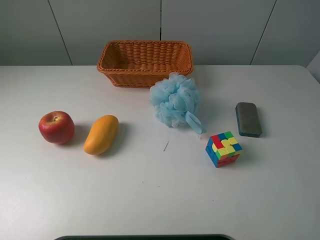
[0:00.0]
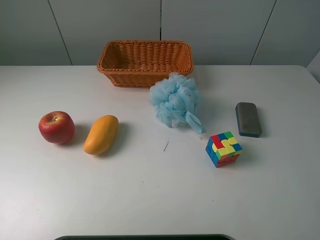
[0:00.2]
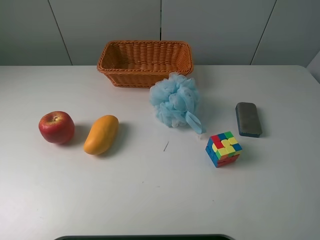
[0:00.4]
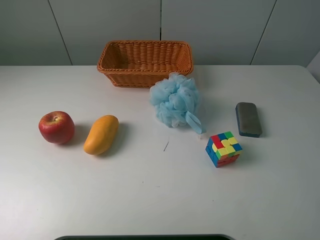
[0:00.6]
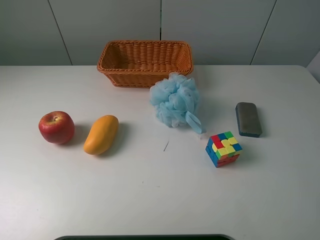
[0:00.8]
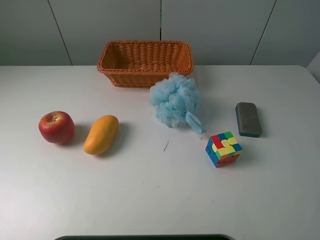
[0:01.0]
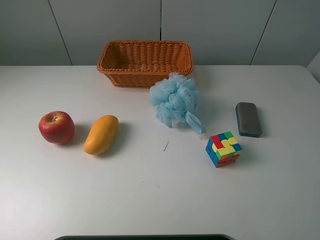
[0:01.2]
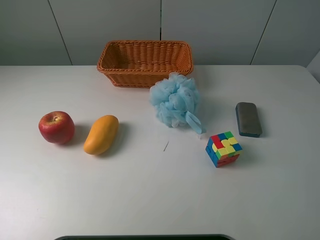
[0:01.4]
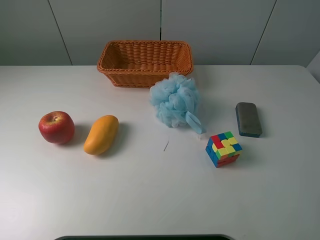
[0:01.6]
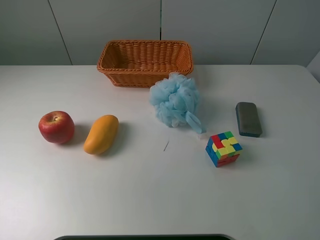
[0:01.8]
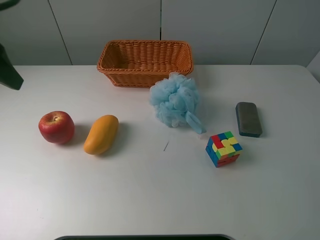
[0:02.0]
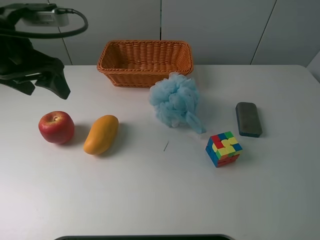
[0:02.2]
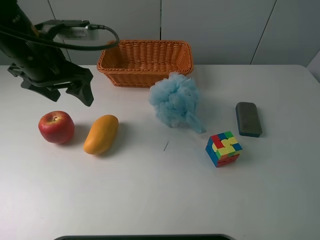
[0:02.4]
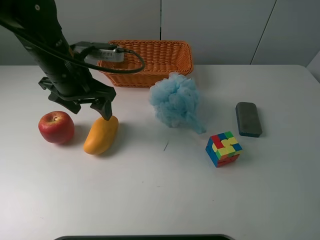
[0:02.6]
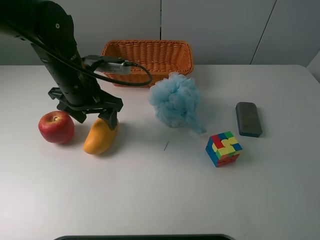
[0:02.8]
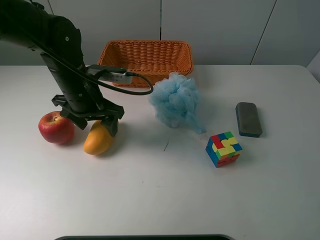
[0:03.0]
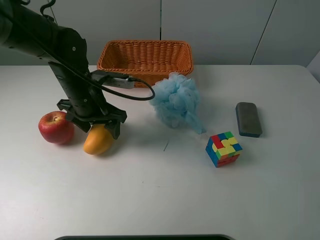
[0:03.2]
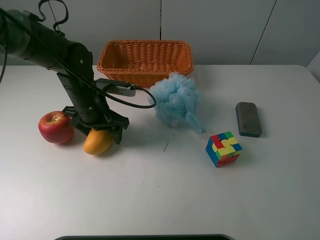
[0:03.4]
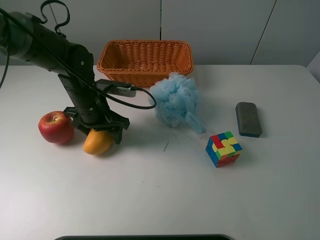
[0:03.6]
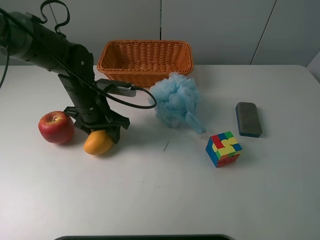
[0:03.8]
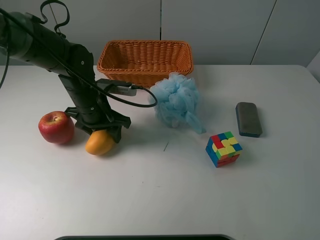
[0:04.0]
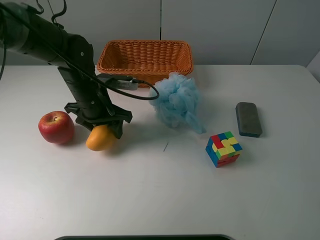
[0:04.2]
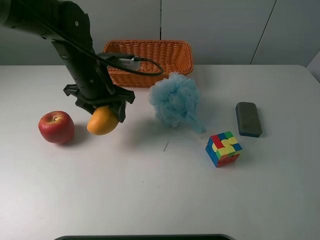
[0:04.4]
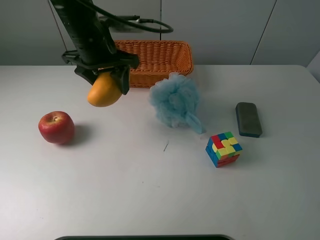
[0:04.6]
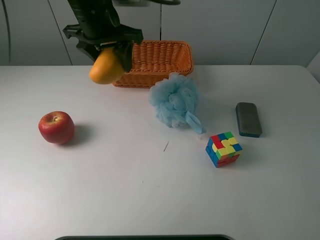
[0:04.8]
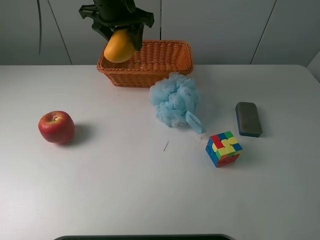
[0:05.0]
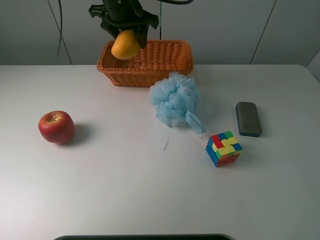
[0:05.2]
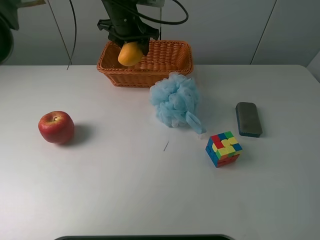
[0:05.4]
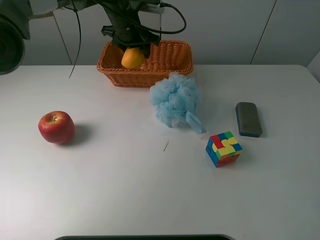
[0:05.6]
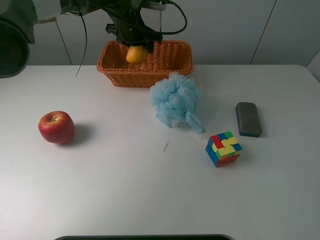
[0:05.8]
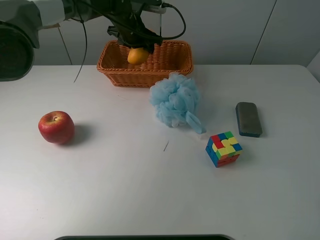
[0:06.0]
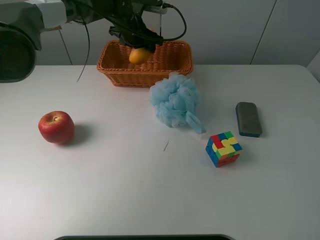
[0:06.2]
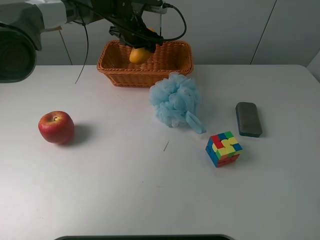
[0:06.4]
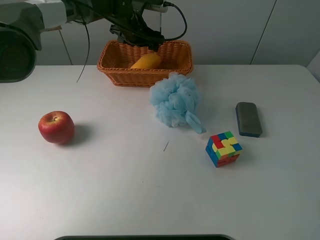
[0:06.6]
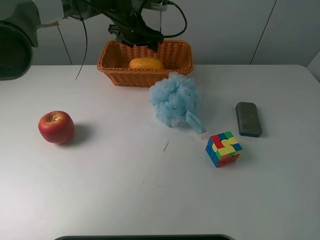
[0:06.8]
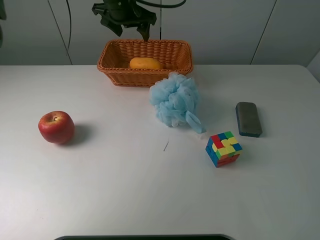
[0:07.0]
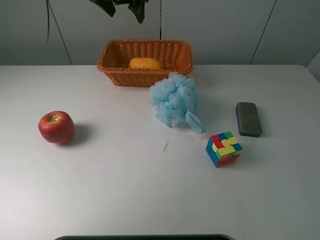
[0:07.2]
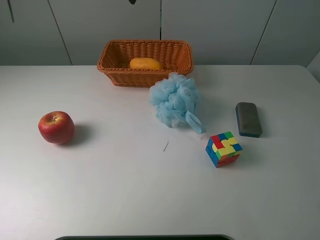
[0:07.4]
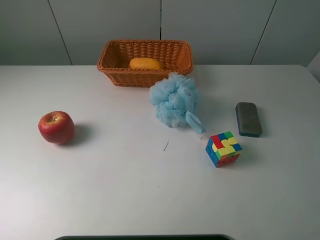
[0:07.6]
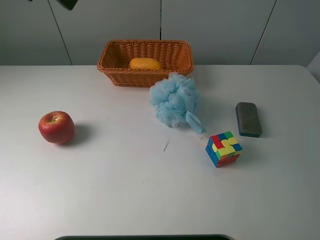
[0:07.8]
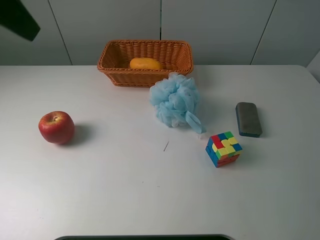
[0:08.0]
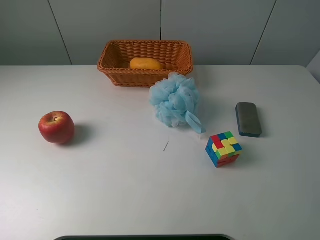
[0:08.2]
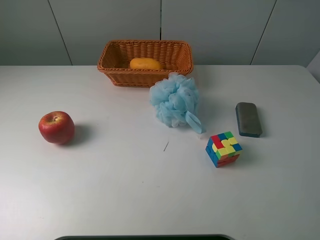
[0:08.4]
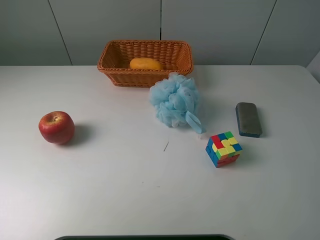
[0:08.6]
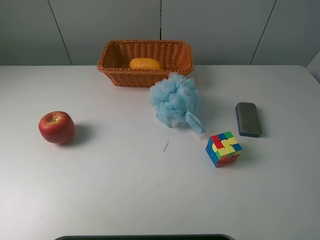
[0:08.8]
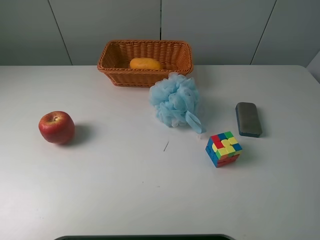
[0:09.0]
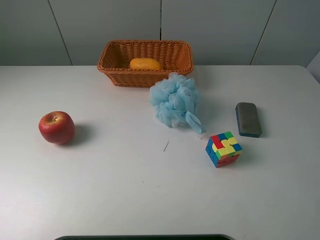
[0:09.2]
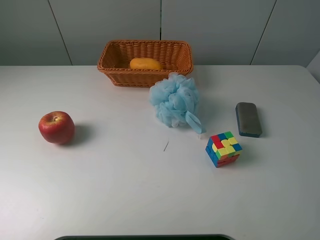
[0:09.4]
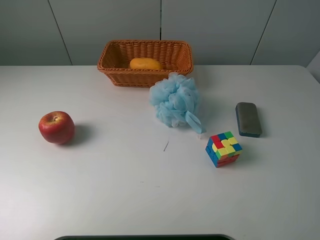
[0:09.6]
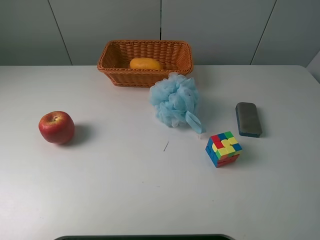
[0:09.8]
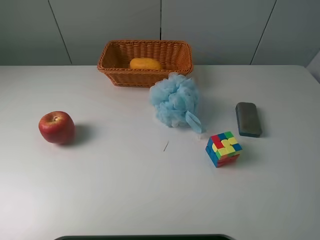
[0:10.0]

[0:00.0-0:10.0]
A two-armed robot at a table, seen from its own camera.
Task of the whole recording: use a picker to grab the item closest to the apple and place it in the basket.
Step, 0:00.0 to 0:04.0: Grasp the mango with the left gripper.
Step, 0:04.2 to 0:06.8: Place the mango into the basket with the left gripper.
0:01.4 to 0:02.8: The left gripper is displaced forward, downward and to the right by roughly 35 cm.
0:02.8 to 0:04.2: The left gripper closes up.
0:04.2 to 0:05.8: The left gripper is displaced forward by approximately 20 cm.
0:05.8 to 0:07.2: The left gripper shifts about 15 cm upward and backward, and opens up.
0:07.2 to 0:08.6: The left gripper is displaced backward and to the left by some 40 cm.

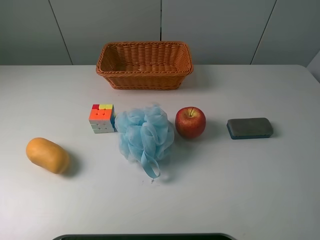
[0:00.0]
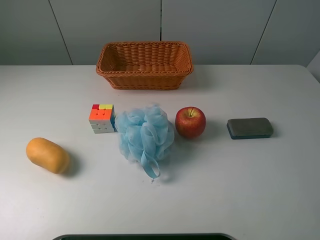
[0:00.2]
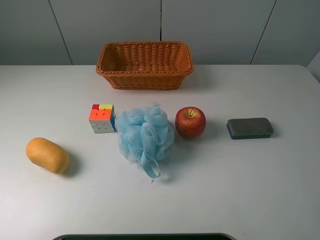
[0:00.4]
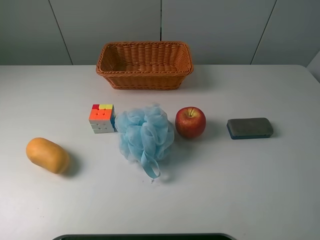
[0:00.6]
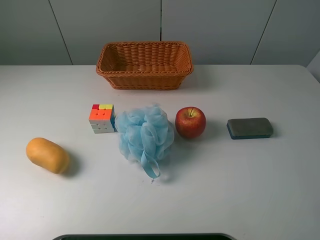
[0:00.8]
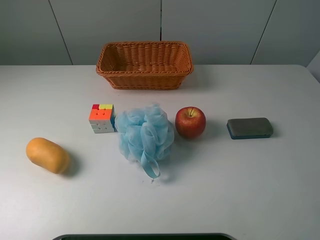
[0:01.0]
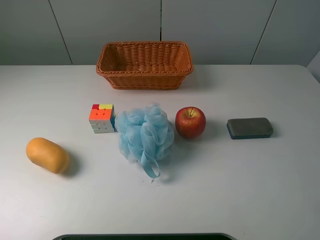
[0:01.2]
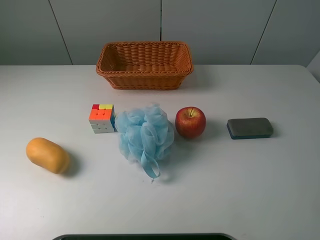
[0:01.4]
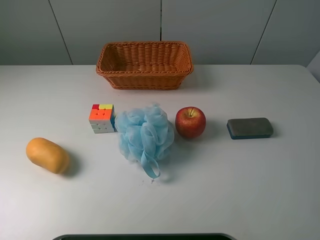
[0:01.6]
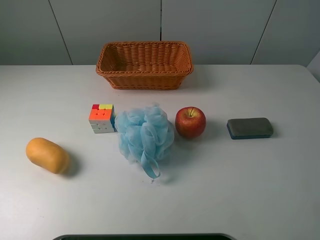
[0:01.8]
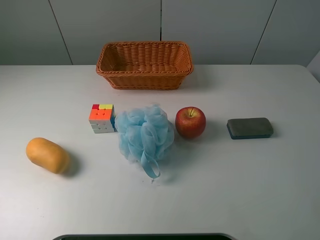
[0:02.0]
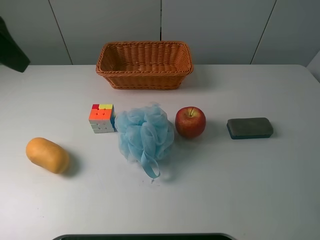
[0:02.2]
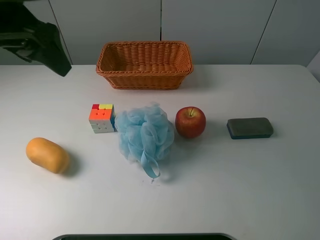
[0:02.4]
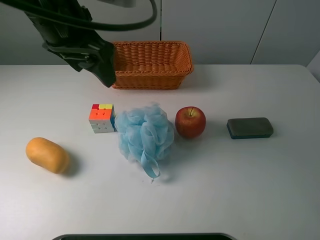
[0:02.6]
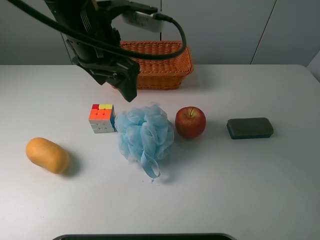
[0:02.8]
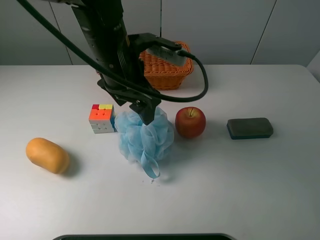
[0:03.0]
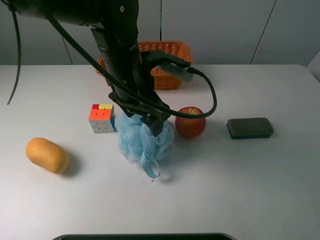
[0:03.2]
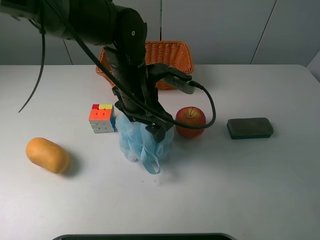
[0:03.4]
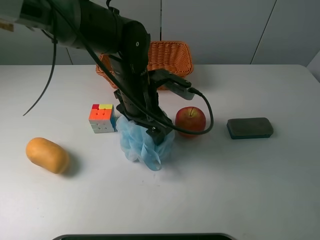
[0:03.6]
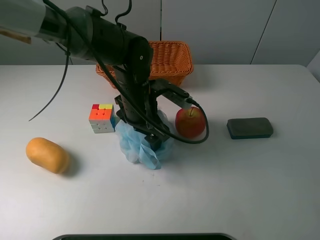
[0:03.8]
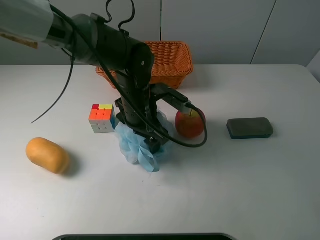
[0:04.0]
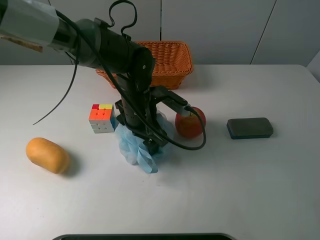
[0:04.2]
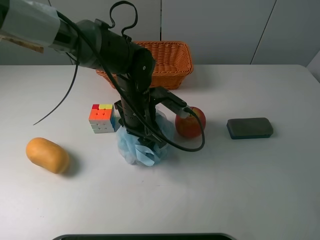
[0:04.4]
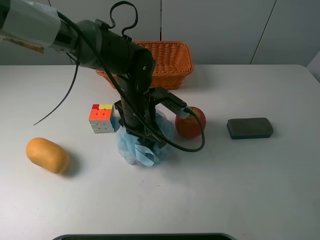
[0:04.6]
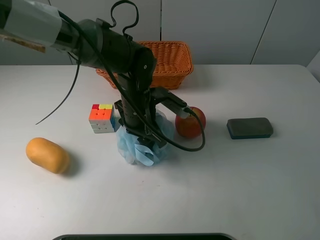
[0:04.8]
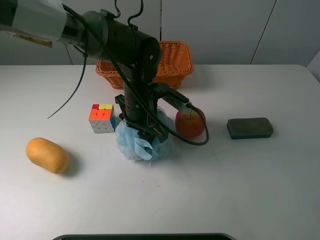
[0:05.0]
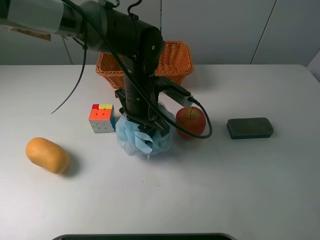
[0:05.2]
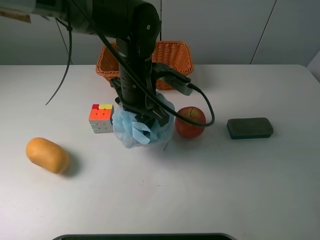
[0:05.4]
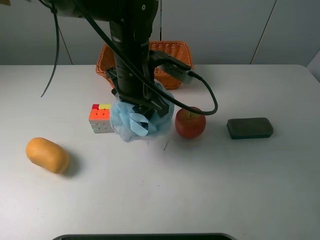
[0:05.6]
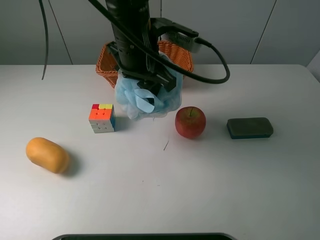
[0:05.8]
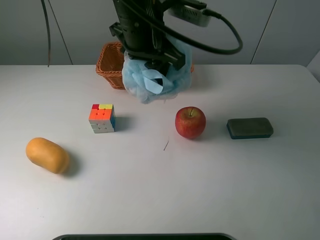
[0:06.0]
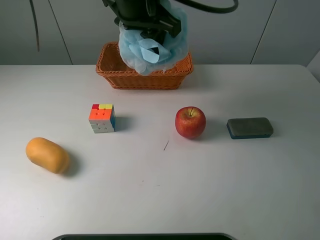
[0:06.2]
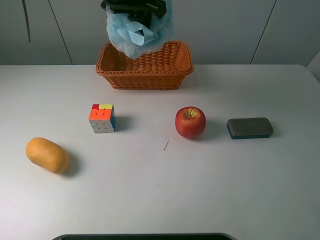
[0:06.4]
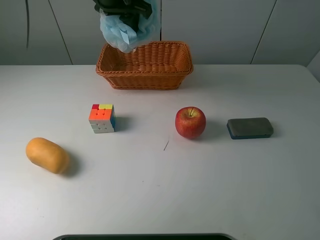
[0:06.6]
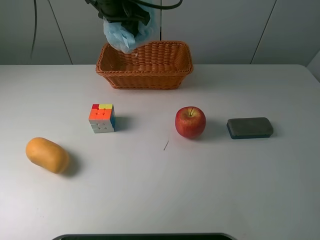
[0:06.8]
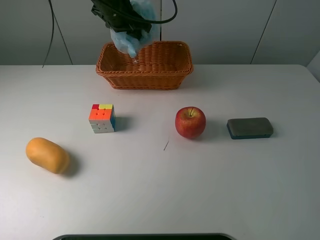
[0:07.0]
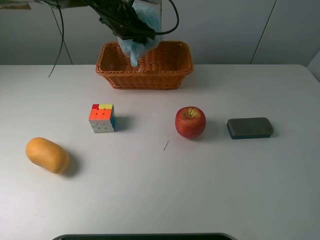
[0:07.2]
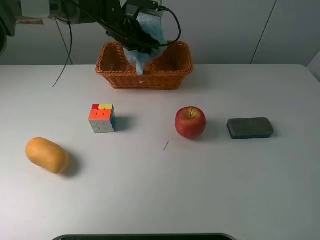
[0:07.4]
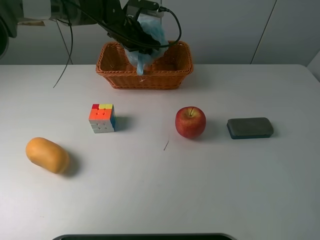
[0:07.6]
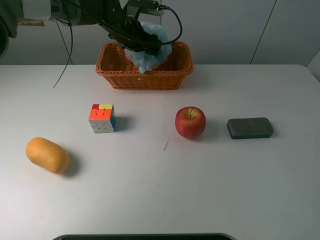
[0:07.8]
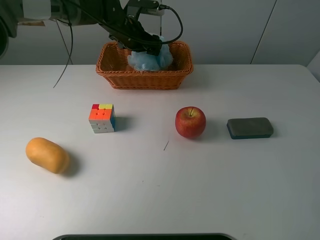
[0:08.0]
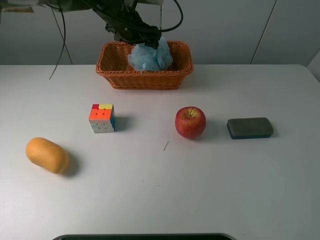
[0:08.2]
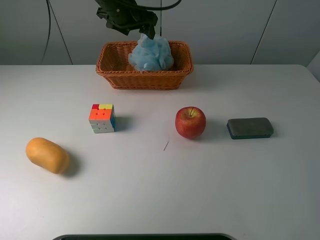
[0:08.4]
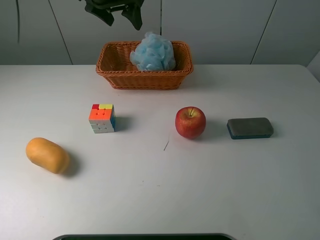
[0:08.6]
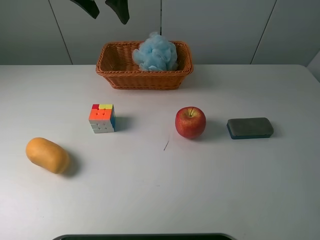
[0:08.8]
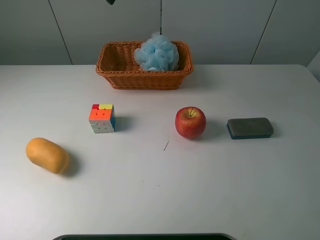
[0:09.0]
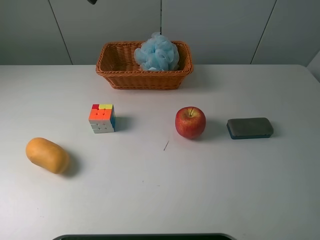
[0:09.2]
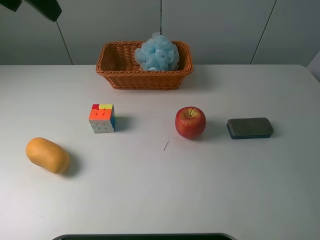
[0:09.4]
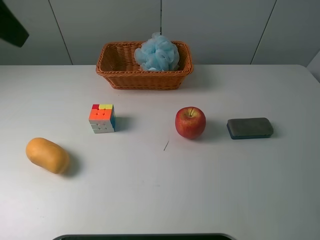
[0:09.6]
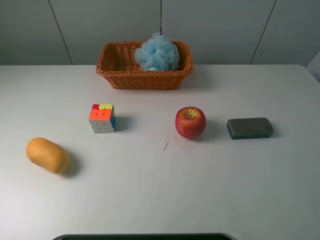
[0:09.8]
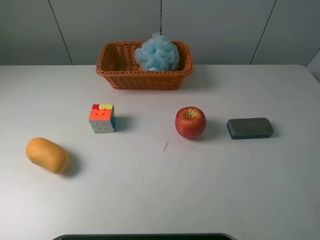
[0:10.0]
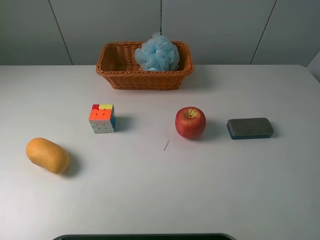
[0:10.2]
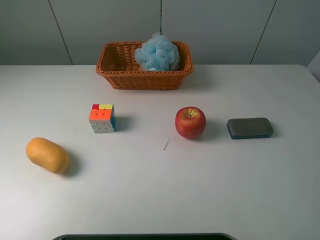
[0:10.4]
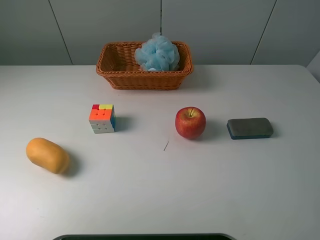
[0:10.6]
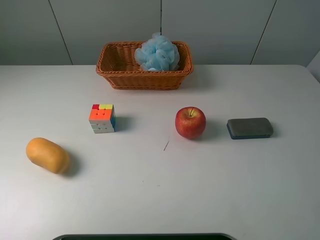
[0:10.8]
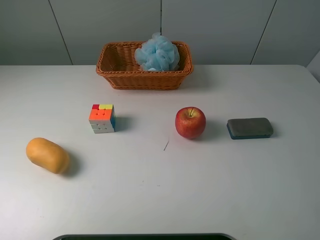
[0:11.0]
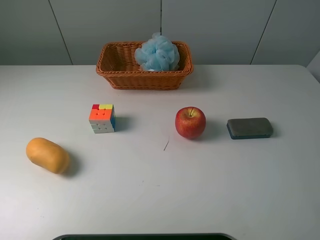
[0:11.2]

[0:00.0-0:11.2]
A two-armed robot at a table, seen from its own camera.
Task of the whole recording: use a picker to grab the item closest to the apple and place it in the basket.
Step, 0:00.0 to 0:04.8: Grasp the shower sphere with the left gripper.
Step, 0:05.0 to 0:08.6: Place the shower sphere into the basket with the left gripper.
0:01.6 to 0:03.2: The left gripper goes roughly 40 cm to the right, forward and downward.
0:03.2 to 0:04.8: The left gripper shifts some 10 cm downward, and closes.
0:04.8 to 0:06.4: The left gripper goes approximately 20 cm upward.
0:06.4 to 0:08.0: The left gripper goes approximately 20 cm downward and forward, and opens up.
0:08.0 to 0:09.6: The left gripper heads backward, upward and to the left, covering about 40 cm.
0:09.6 to 0:11.2: The left gripper goes approximately 25 cm backward, downward and to the left.

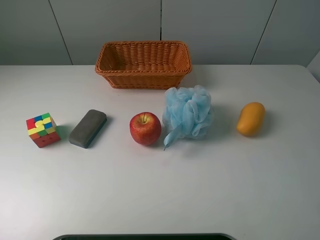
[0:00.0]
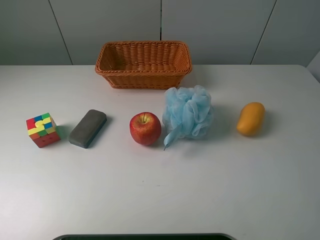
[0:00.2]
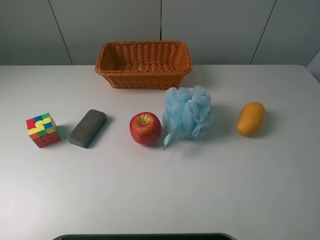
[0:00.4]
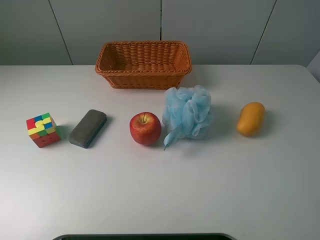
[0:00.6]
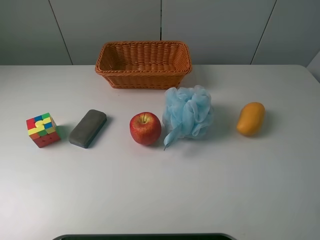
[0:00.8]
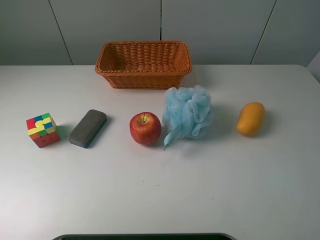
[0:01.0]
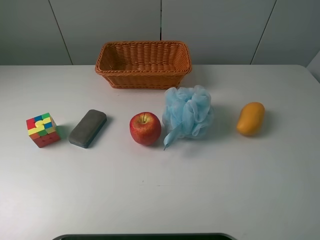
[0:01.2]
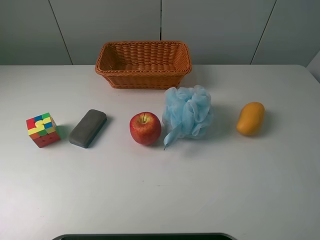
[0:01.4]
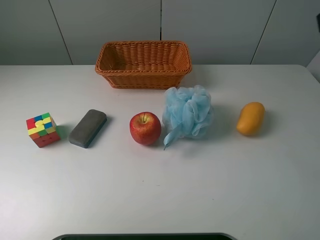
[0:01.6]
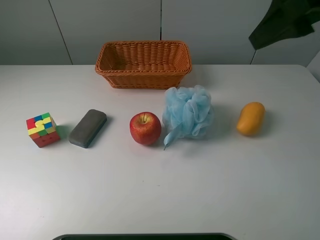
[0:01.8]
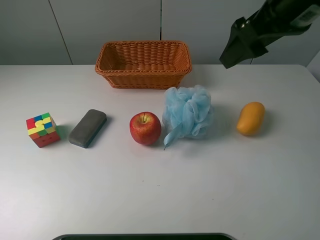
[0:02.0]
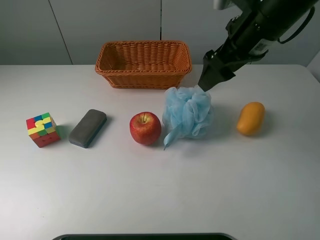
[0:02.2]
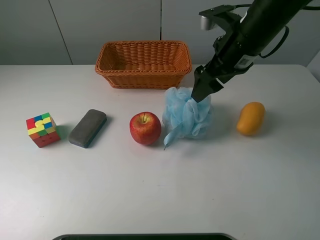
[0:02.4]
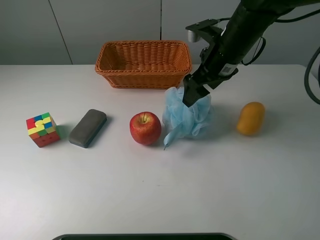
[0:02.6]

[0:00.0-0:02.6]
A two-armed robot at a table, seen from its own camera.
Task of the whole recording: use a picker to grab the item closest to the apple and place it in the basket.
0:01.2 to 0:02.6: The right gripper shifts roughly 35 cm forward, downward and to the left.
